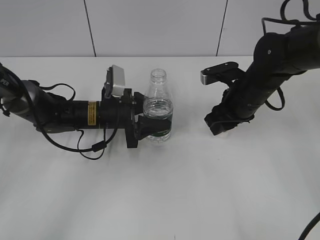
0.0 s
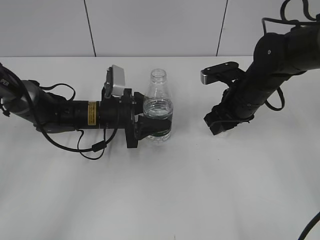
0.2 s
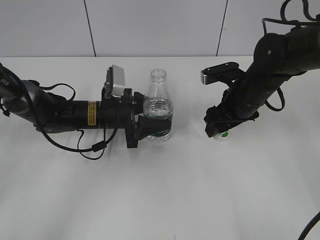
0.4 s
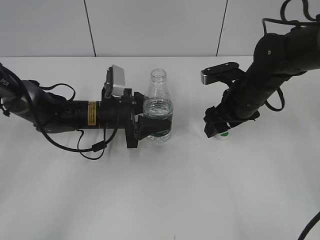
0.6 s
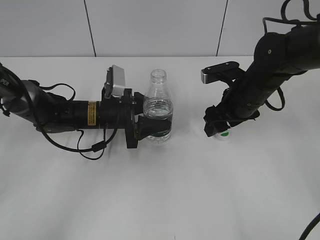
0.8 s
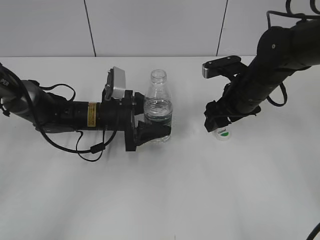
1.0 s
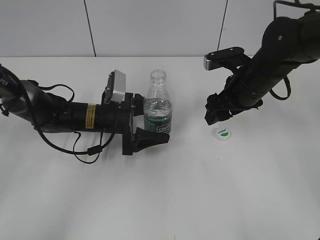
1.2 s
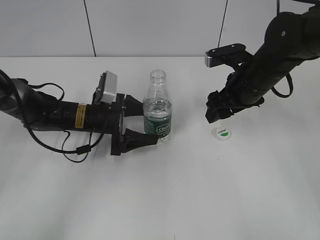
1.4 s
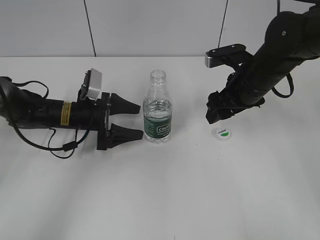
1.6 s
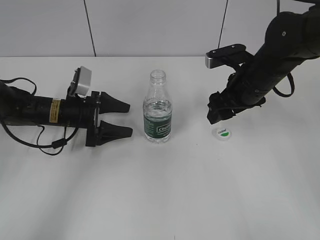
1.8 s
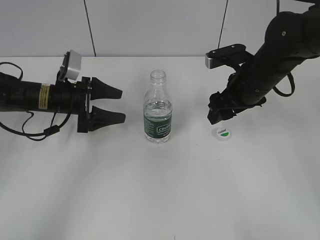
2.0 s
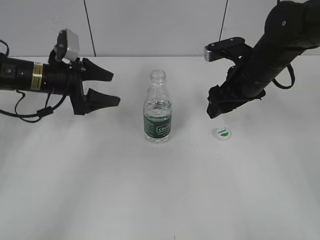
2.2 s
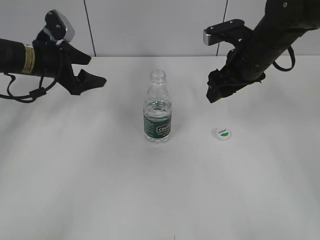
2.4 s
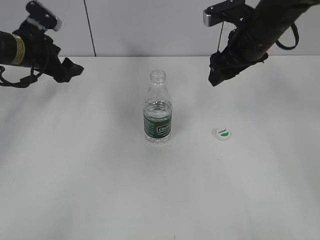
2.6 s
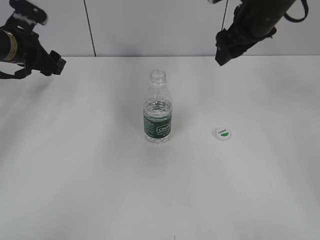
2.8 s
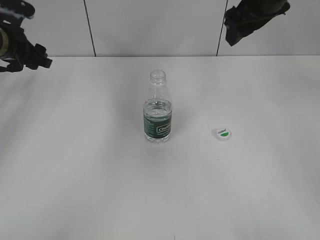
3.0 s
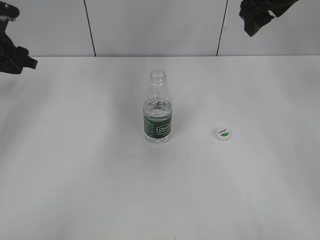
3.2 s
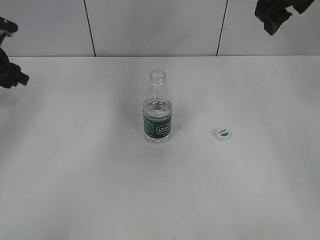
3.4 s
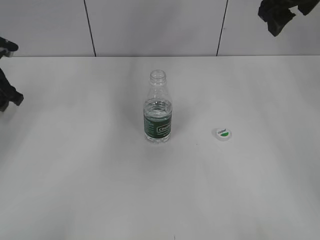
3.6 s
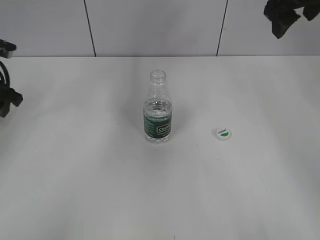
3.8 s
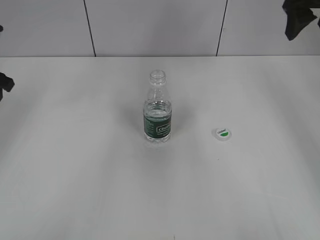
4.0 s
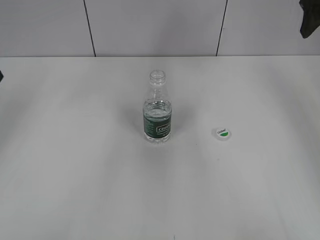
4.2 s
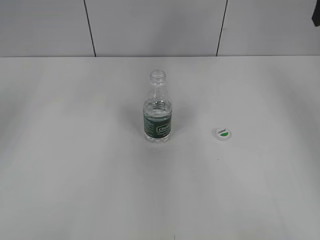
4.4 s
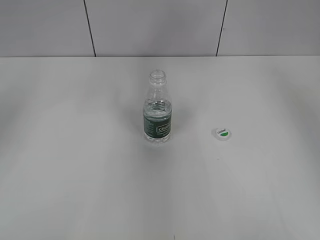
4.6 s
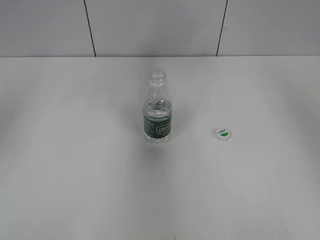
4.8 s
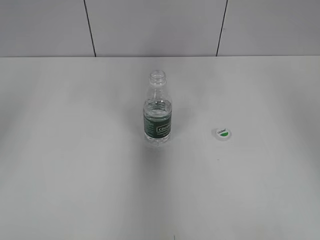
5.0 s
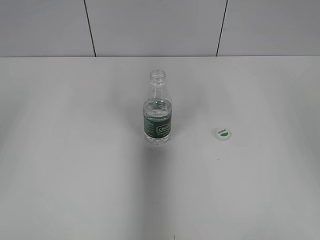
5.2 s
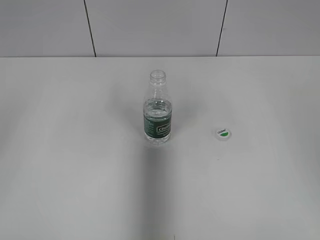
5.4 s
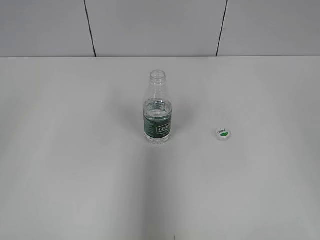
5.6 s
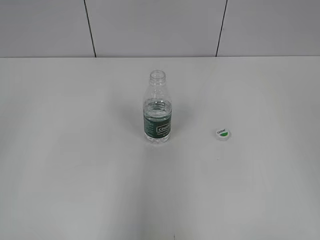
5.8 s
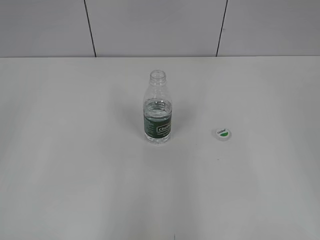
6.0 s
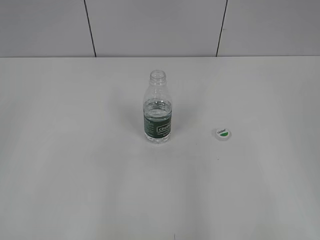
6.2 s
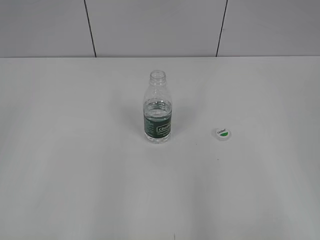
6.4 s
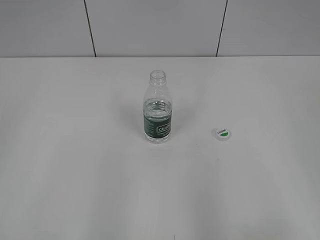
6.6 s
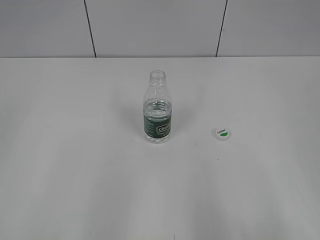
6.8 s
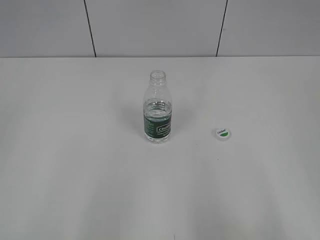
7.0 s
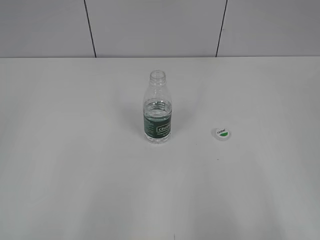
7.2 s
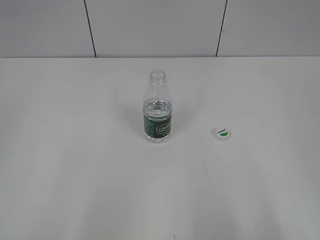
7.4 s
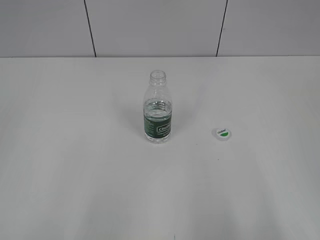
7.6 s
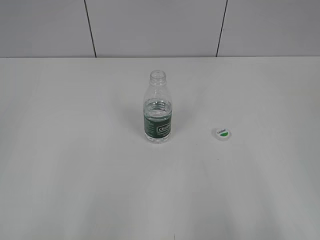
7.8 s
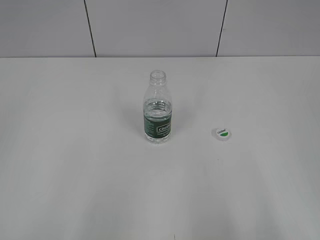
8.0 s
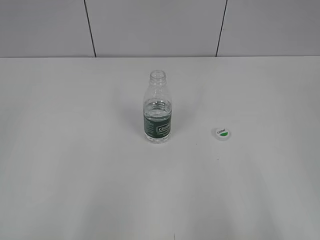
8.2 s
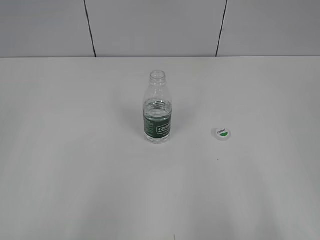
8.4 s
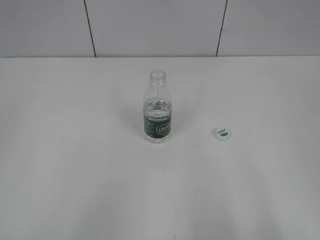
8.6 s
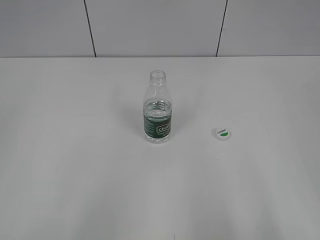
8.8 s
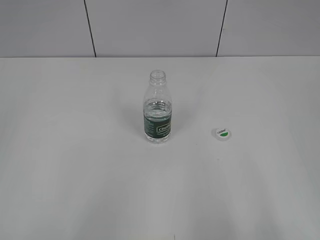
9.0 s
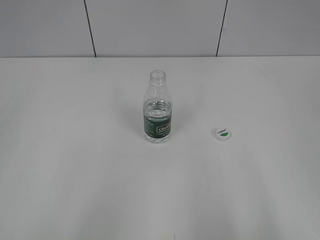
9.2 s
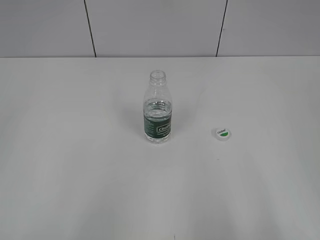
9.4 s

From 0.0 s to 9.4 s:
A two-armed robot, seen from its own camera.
From 0.0 s to 1.6 s: The right gripper opens, while the left gripper moves to the left, roughly 5 cm, and opens.
From 1.6 s to 3.2 s: The right gripper shifts about 15 cm upward, while the left gripper shifts approximately 20 cm to the left and upward, and closes up.
From 3.2 s to 4.8 s: The left gripper moves backward and upward, roughly 20 cm. Meanwhile the right gripper heads to the right, backward and upward, covering roughly 15 cm.
From 4.8 s to 6.2 s: Both grippers move backward, roughly 25 cm.
From 7.8 s to 9.4 s: Both grippers stay about where they are.

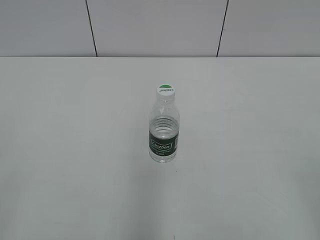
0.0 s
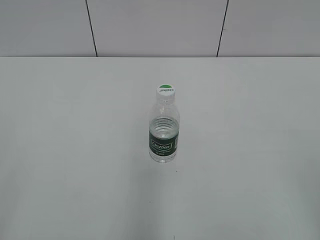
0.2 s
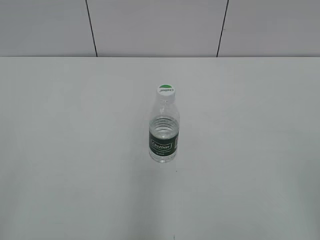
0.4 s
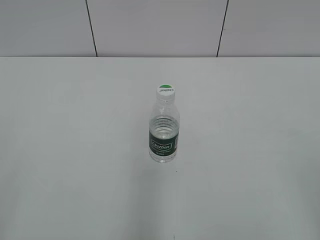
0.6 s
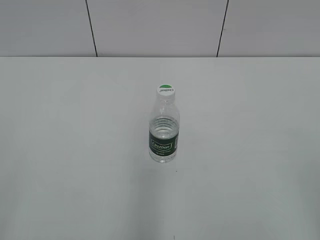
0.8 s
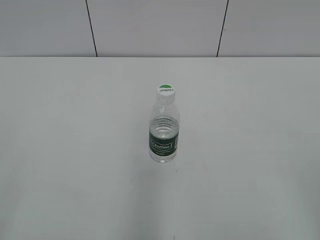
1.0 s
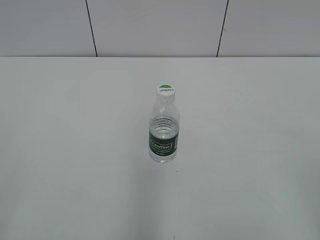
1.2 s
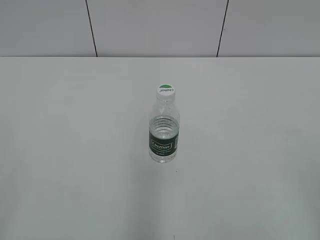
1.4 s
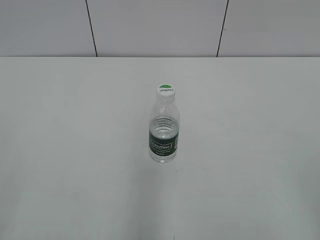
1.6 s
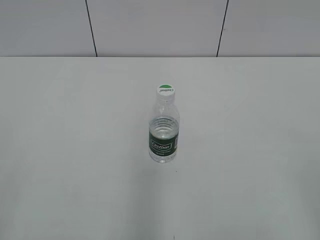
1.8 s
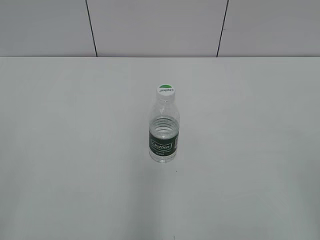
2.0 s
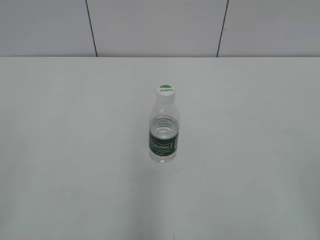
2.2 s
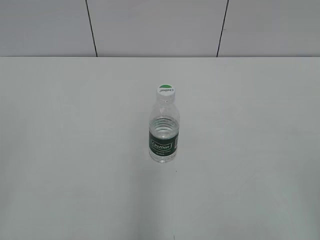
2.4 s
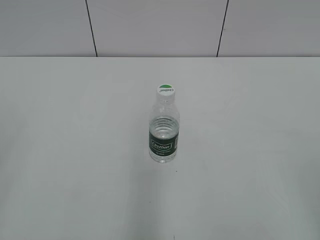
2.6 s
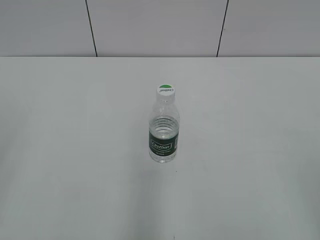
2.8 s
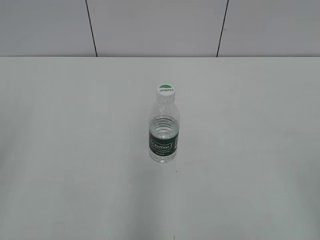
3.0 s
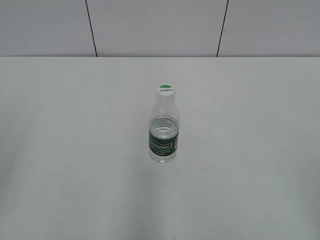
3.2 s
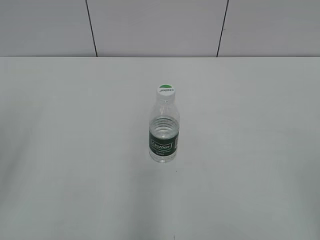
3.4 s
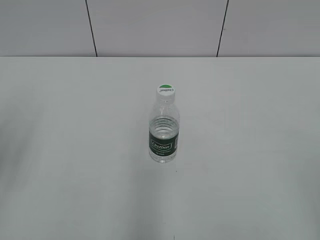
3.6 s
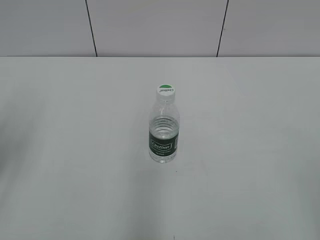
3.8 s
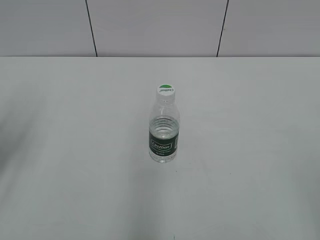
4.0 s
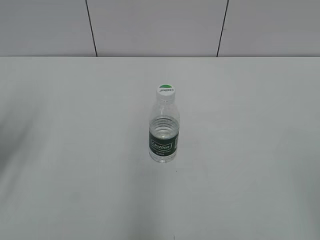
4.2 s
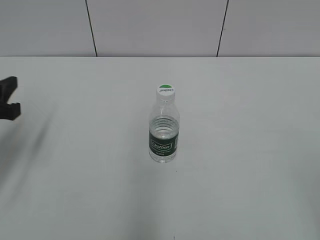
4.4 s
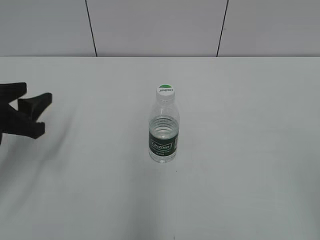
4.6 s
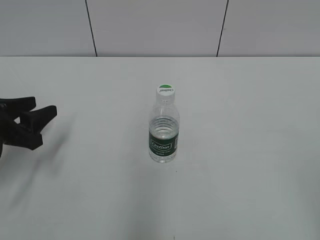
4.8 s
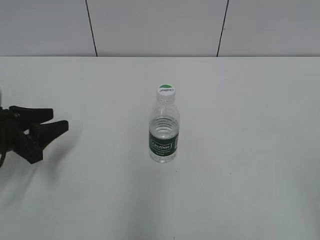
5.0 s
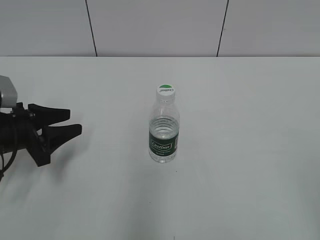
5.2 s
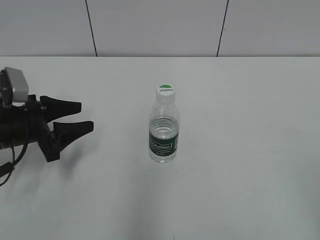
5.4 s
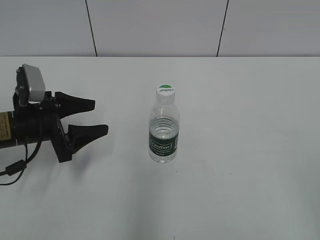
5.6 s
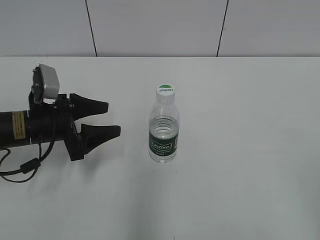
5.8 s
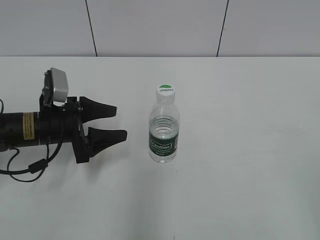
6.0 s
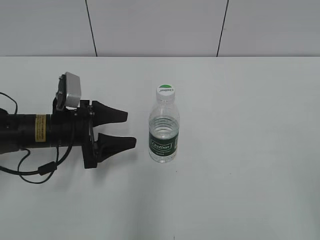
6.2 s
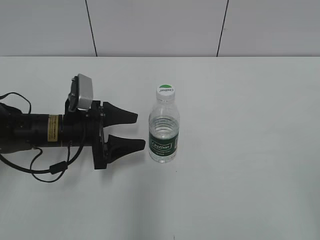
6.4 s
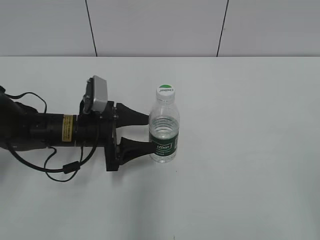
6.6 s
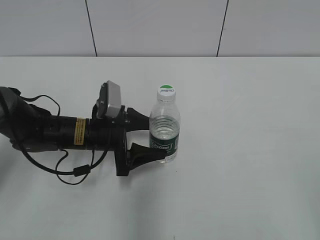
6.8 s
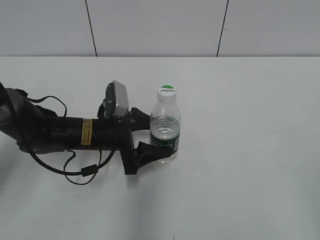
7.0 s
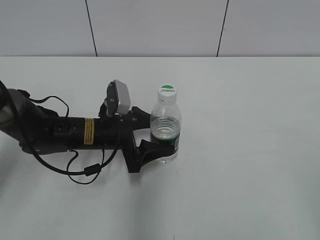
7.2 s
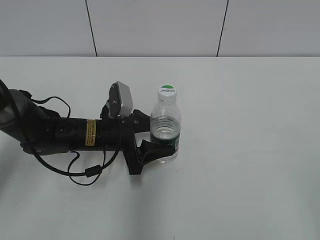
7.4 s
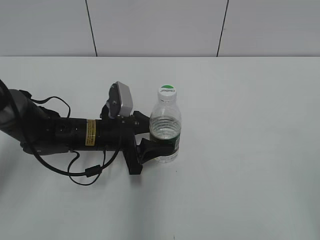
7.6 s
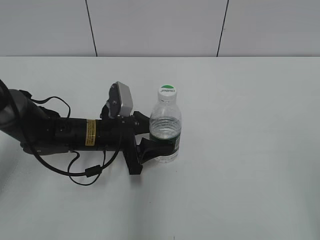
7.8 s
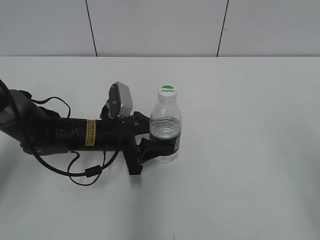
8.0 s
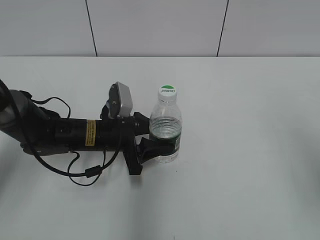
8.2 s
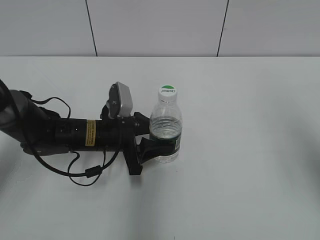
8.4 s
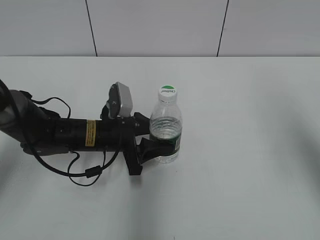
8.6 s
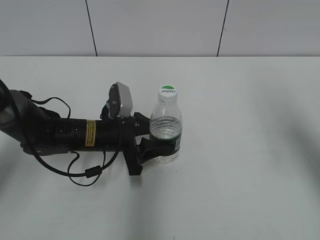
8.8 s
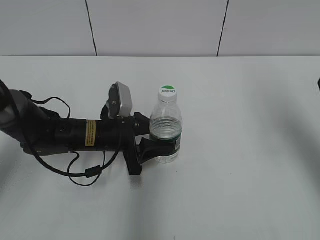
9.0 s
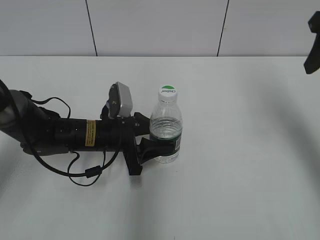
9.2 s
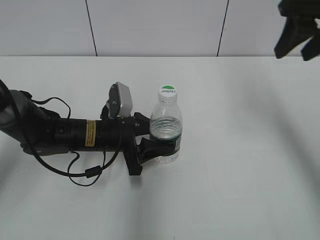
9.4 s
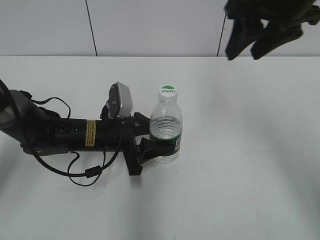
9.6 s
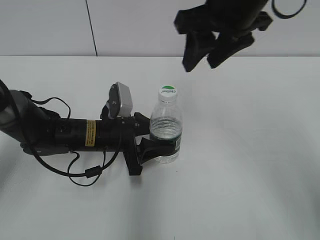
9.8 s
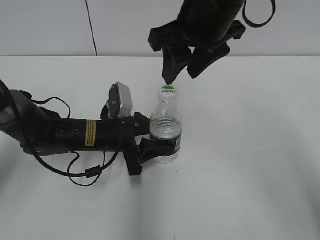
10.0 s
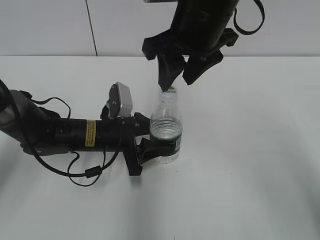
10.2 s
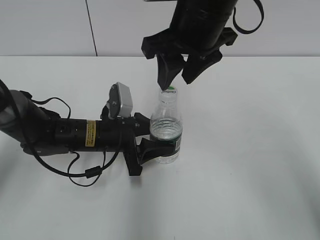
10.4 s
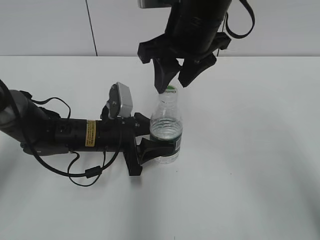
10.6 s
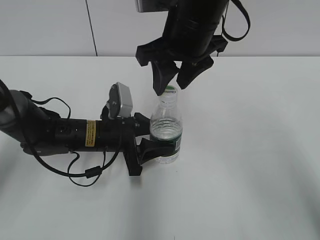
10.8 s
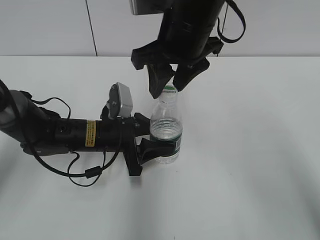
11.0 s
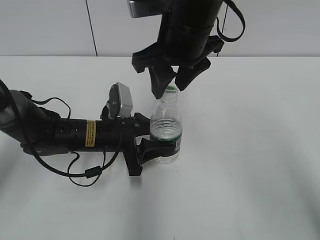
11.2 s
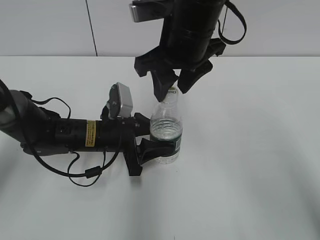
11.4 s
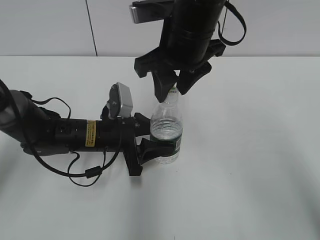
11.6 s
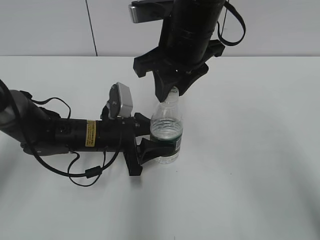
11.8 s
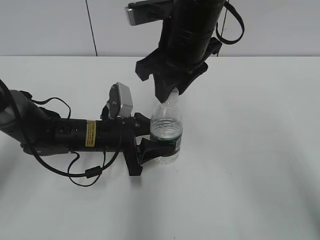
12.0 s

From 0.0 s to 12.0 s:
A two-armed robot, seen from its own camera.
Step, from 0.0 s to 7.8 s: Grasp the bottle and move it to the center of the table with the left gripper.
From 3.0 s to 4.4 s: The left gripper heads forward and downward, covering about 15 cm.
From 4.4 s to 6.0 s: The left gripper goes approximately 15 cm downward, to the right and forward, and opens.
From 6.0 s to 7.6 s: The left gripper travels to the right by some 10 cm, and closes up.
From 7.6 s to 9.0 s: The right gripper goes approximately 30 cm forward.
From 9.0 s to 10.4 s: The right gripper moves to the left, some 20 cm, and closes up.
From 10.4 s to 12.0 s: The right gripper closes.

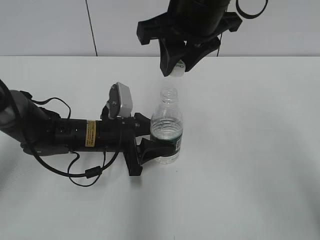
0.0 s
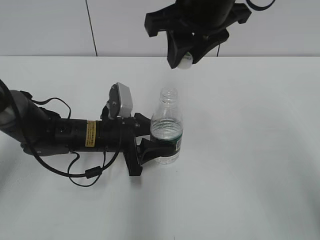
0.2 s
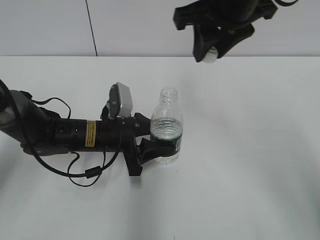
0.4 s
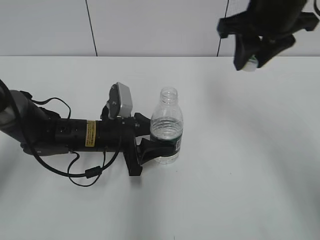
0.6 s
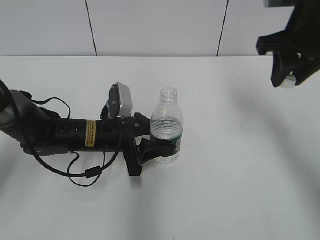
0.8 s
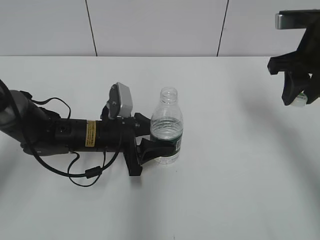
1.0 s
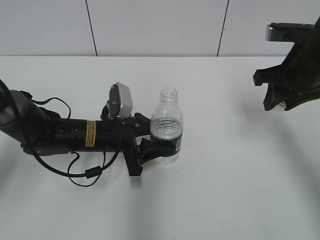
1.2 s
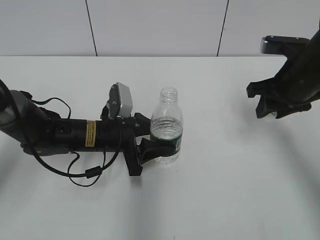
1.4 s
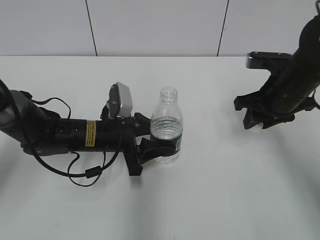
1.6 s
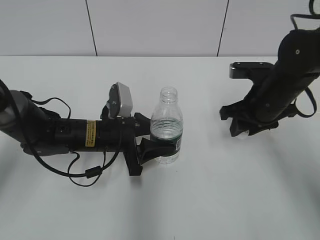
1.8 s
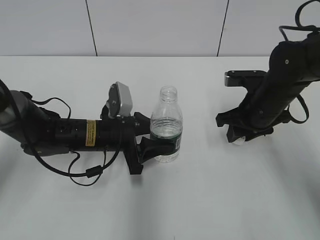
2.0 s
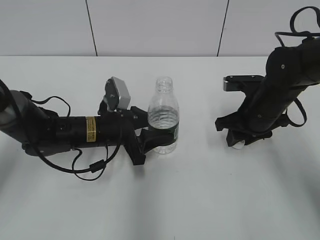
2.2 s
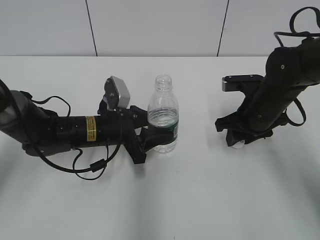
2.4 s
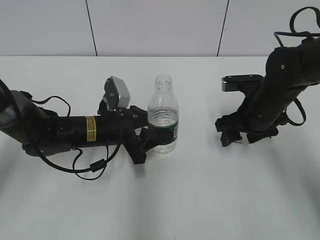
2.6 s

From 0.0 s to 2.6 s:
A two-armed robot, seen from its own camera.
From 0.0 s to 1.2 s: The right gripper moves to the right and downward, about 20 cm.
From 1.2 s to 2.6 s: The right gripper travels downward by about 10 cm, and opens up.
